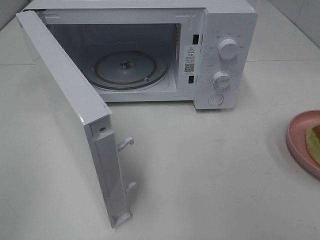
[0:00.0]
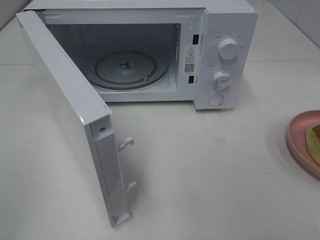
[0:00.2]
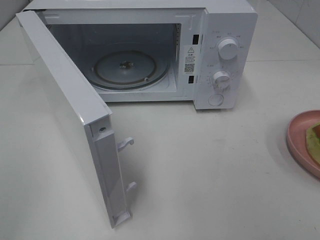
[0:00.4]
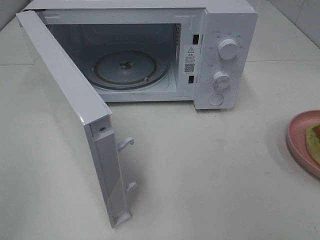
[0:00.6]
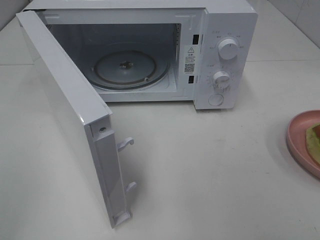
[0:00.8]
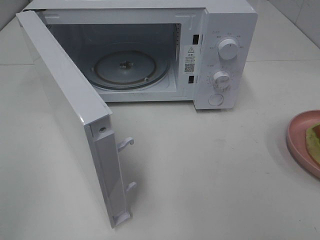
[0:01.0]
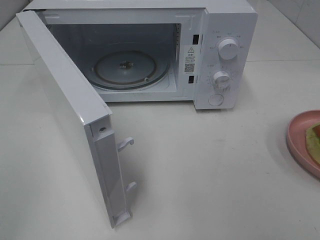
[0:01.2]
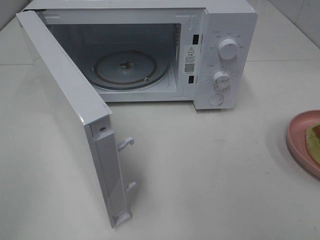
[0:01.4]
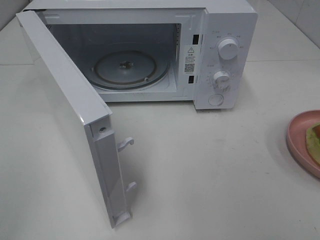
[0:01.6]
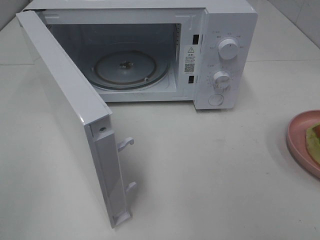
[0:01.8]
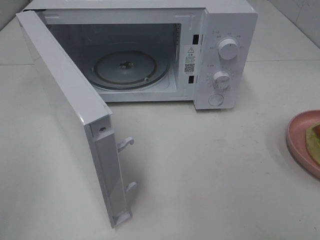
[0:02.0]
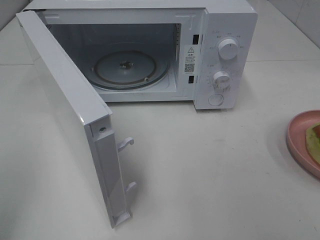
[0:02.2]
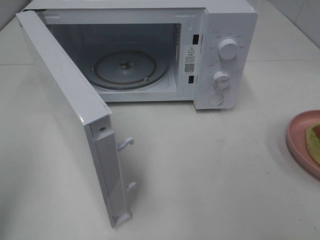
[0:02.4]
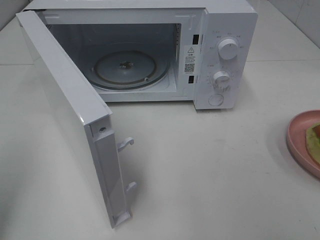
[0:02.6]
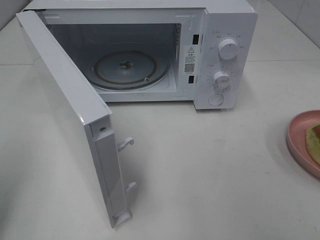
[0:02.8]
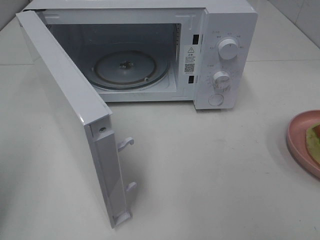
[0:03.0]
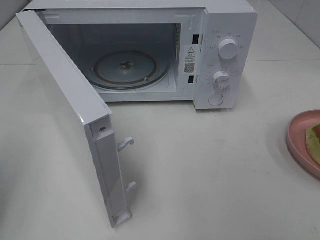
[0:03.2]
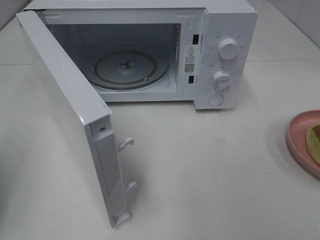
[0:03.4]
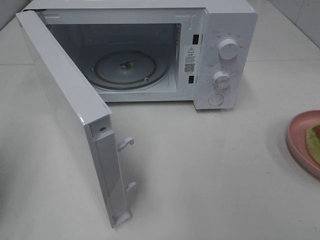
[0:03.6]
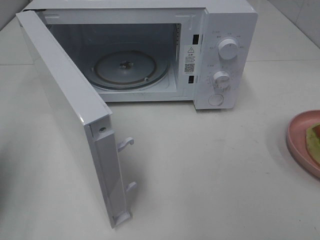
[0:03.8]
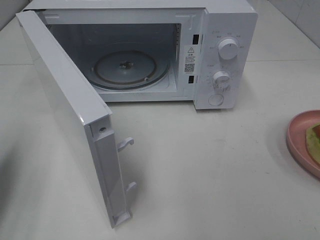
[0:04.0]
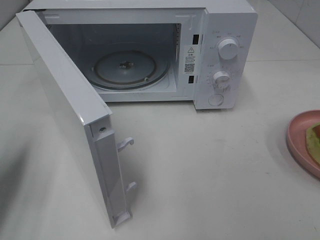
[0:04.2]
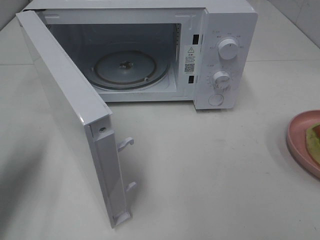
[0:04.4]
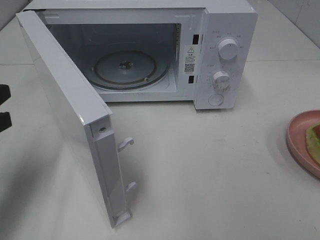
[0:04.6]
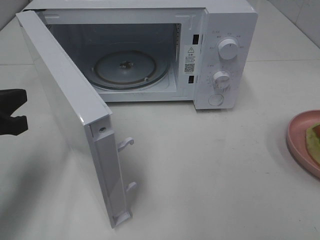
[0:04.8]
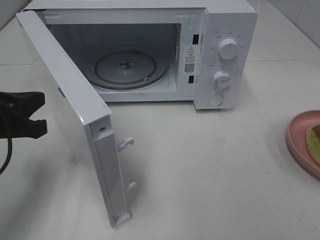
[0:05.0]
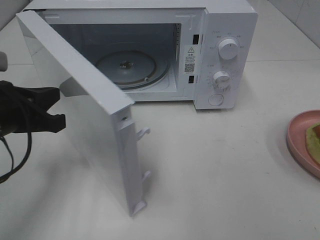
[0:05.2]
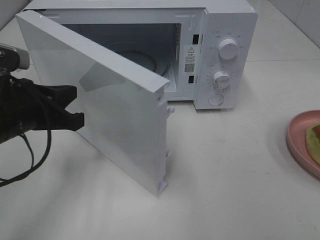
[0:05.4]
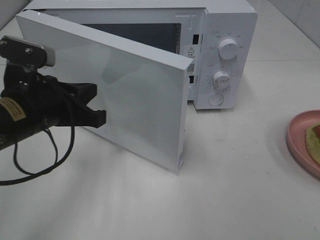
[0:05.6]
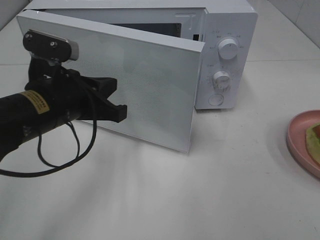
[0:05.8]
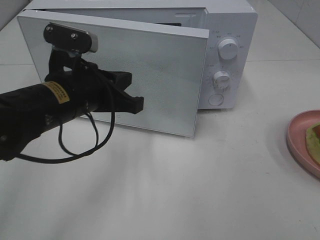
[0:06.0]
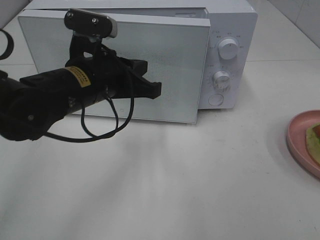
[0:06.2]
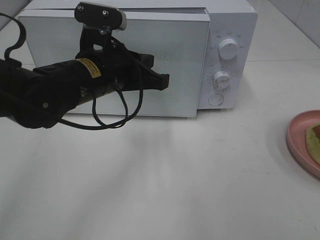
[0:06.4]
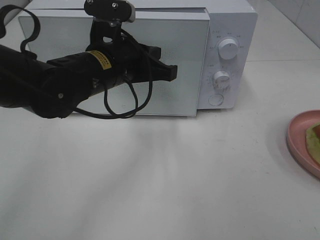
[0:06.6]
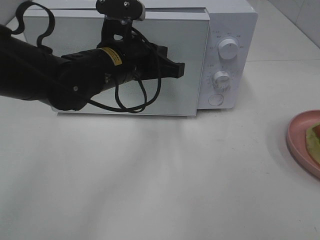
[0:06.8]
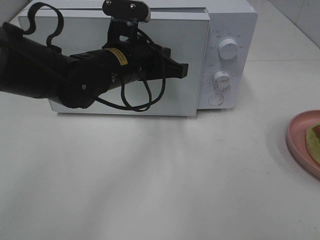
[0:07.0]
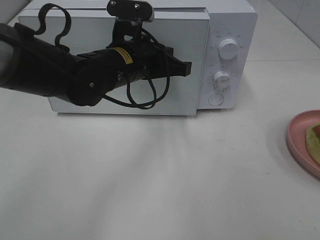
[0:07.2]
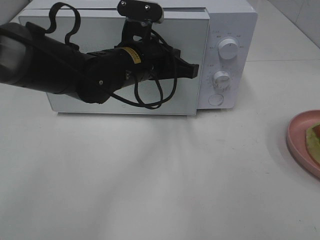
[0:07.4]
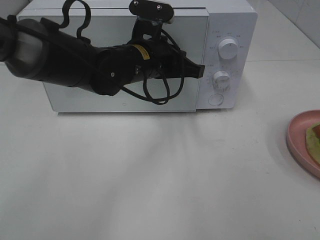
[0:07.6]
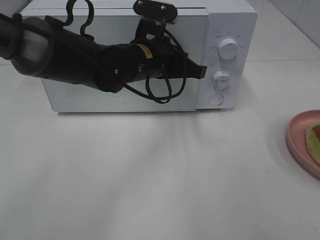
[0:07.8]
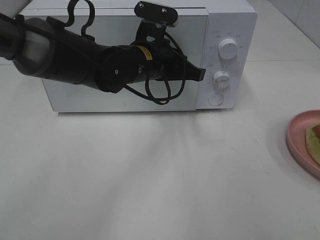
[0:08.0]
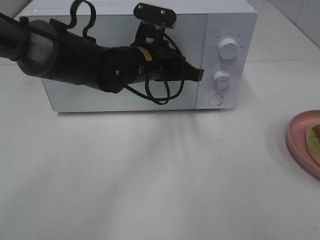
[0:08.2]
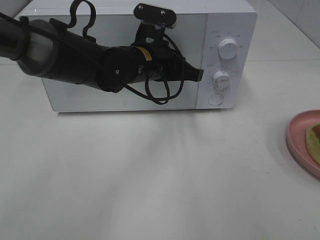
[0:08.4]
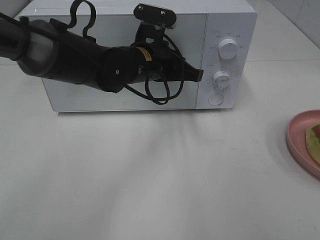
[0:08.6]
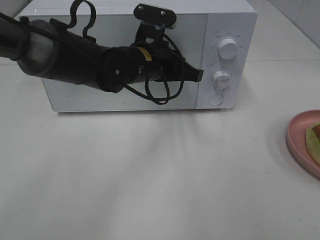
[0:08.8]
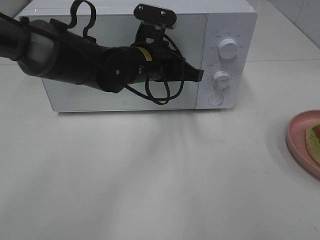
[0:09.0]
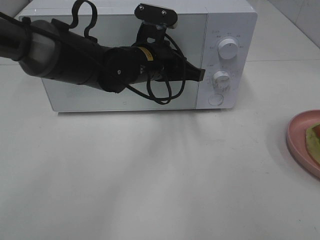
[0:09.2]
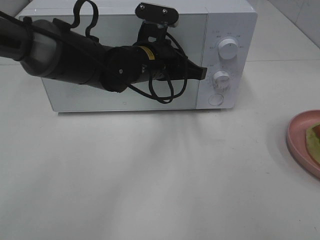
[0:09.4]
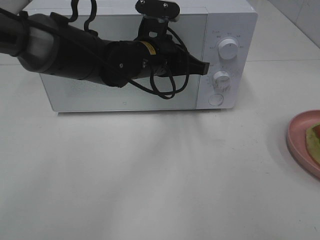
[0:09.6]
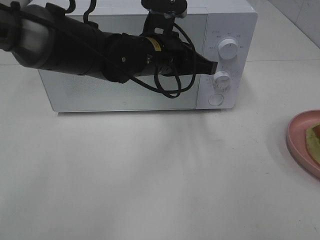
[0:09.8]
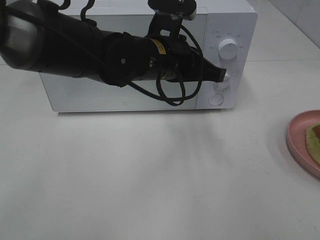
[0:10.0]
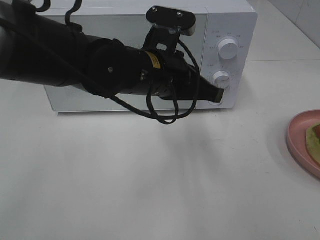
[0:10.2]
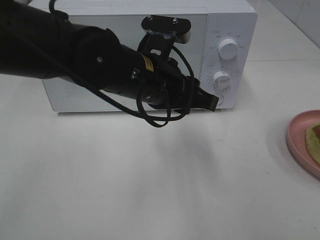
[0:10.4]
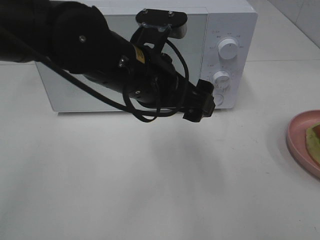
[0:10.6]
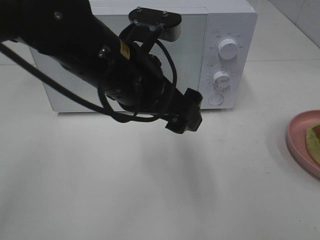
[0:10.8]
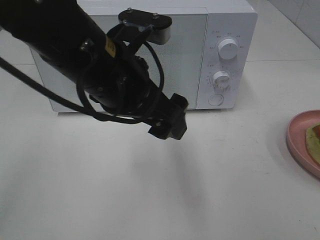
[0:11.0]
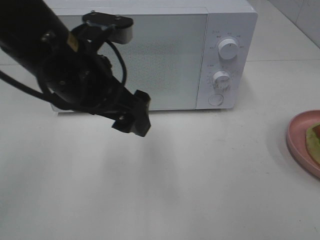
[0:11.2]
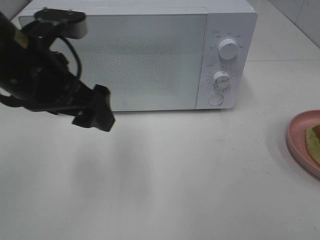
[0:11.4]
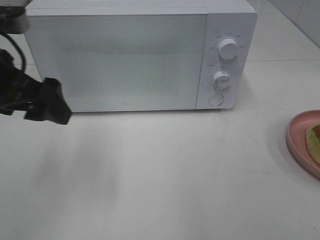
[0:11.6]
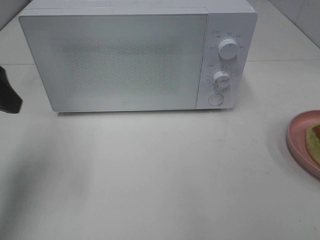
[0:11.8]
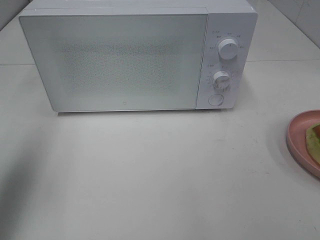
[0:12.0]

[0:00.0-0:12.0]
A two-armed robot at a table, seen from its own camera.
Task of the whole recording: Heat Sandwich.
Step, 0:00.0 to 0:09.8: Left hand: close the microwave door.
0:00.0 to 0:01.6: Both grippers stay put.
0:03.0 to 0:04.4: The left gripper goes roughly 10 cm forward.
0:04.4 to 0:06.0: The left gripper moves to the right, roughly 20 cm.
0:06.0 to 0:07.6: The left gripper goes about 15 cm to the right and forward.
0:07.6 to 0:09.0: The grippers make only small movements.
0:09.0 to 0:10.4: The left gripper travels backward by about 10 cm, and opens its fingers.
0:10.4 to 0:12.0: The left gripper goes approximately 30 cm to the left, and opens its fingers.

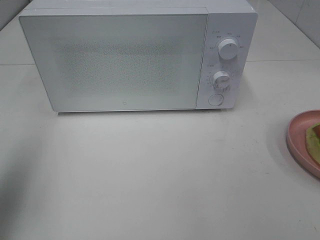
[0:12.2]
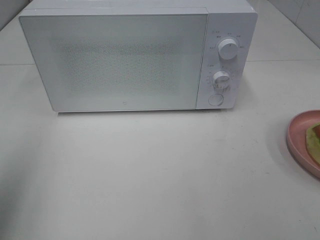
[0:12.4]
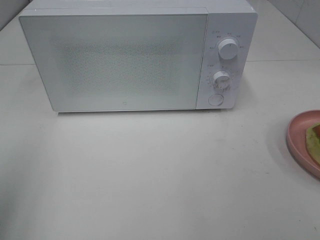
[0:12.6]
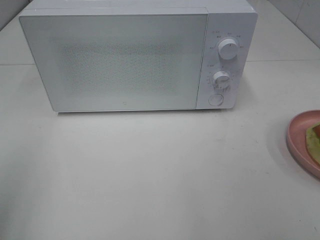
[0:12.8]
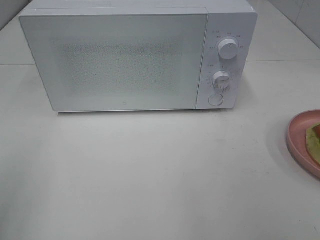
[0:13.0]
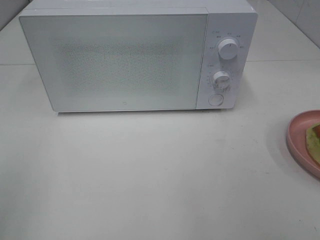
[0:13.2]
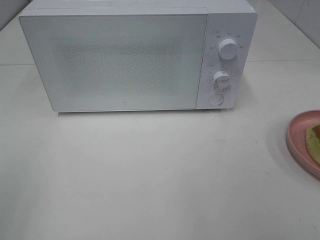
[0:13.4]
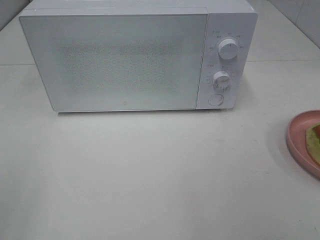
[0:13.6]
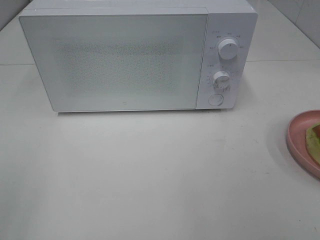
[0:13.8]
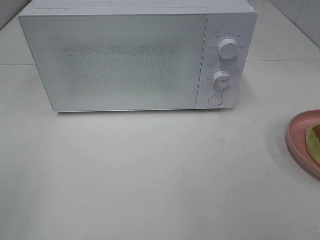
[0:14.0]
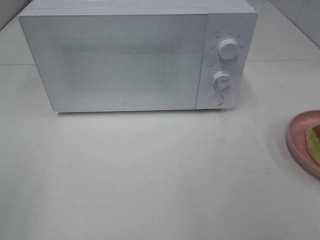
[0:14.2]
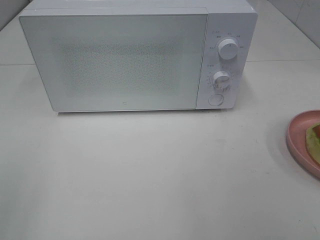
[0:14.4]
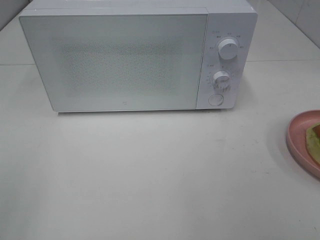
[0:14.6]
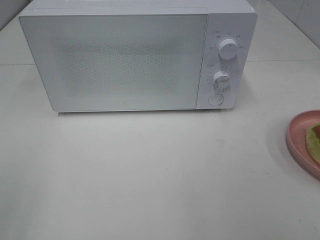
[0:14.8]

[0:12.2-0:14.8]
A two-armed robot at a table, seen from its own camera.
Task of the whole recording: Heat Sandwich.
0:12.2 to 0:13.4: The left gripper heads backward, covering some 15 cm.
